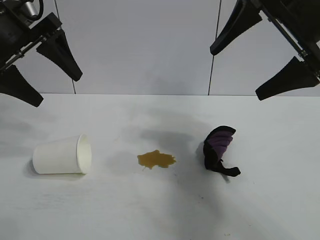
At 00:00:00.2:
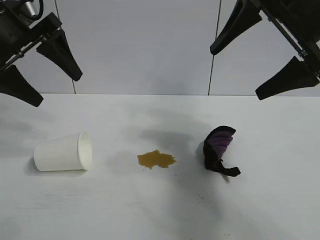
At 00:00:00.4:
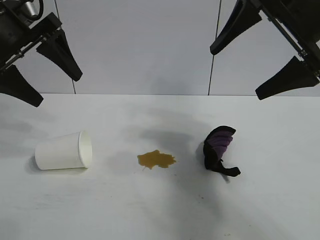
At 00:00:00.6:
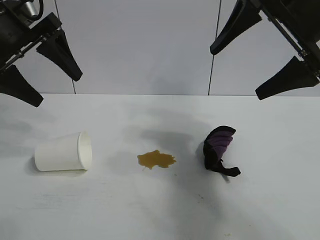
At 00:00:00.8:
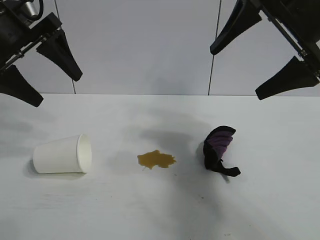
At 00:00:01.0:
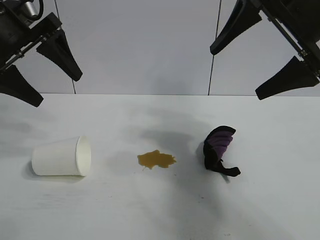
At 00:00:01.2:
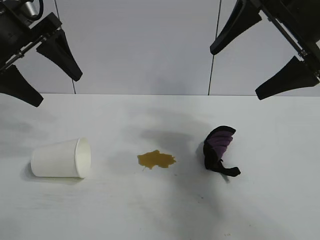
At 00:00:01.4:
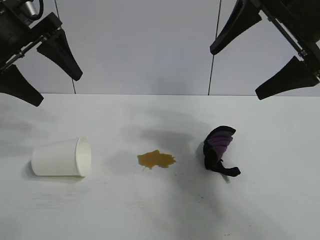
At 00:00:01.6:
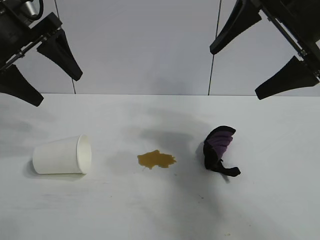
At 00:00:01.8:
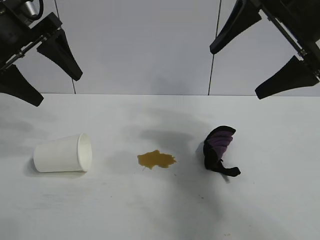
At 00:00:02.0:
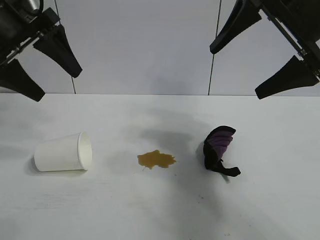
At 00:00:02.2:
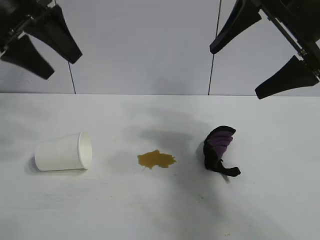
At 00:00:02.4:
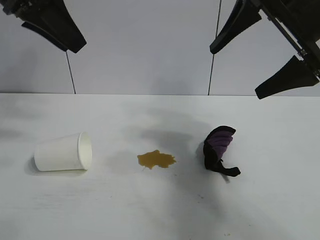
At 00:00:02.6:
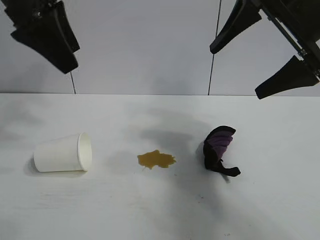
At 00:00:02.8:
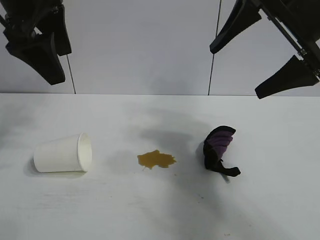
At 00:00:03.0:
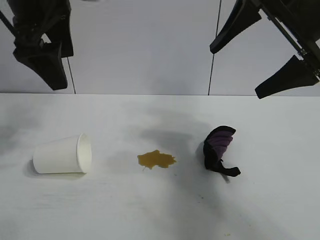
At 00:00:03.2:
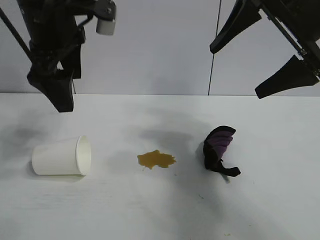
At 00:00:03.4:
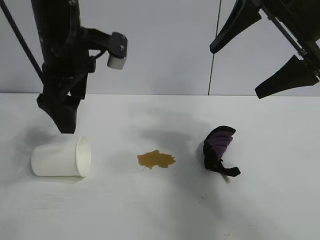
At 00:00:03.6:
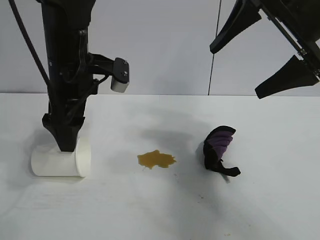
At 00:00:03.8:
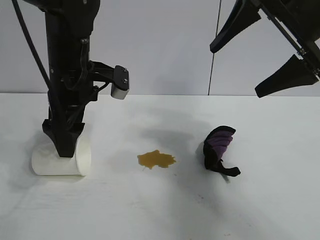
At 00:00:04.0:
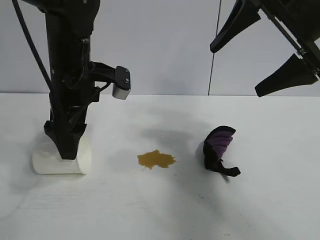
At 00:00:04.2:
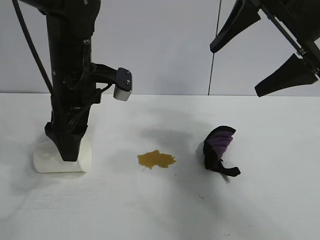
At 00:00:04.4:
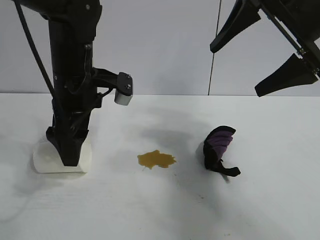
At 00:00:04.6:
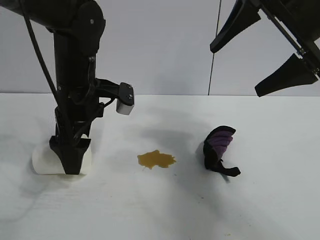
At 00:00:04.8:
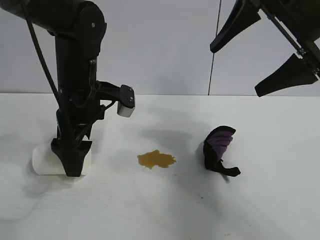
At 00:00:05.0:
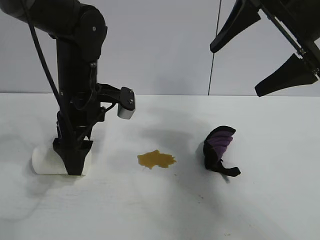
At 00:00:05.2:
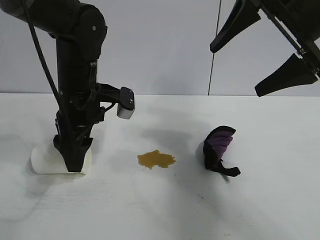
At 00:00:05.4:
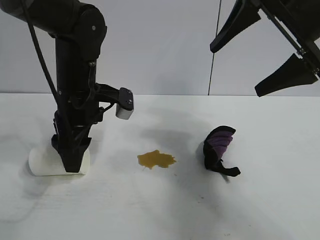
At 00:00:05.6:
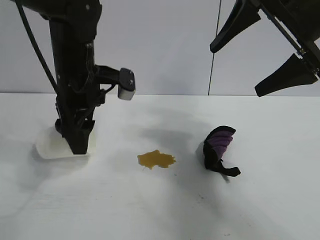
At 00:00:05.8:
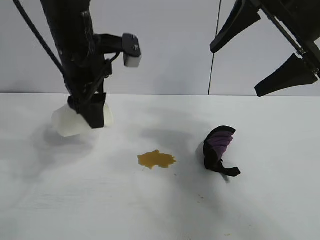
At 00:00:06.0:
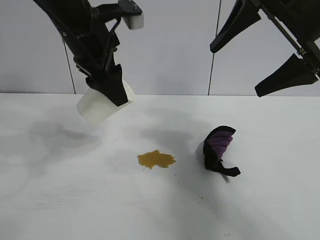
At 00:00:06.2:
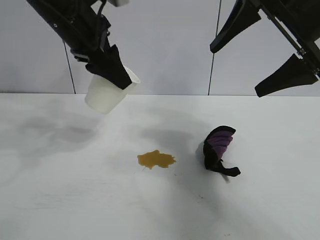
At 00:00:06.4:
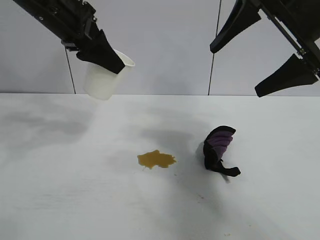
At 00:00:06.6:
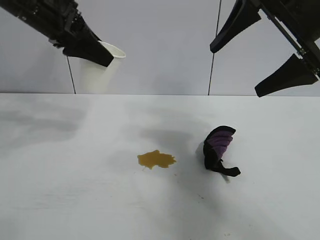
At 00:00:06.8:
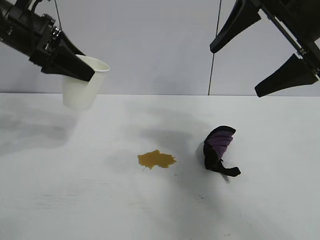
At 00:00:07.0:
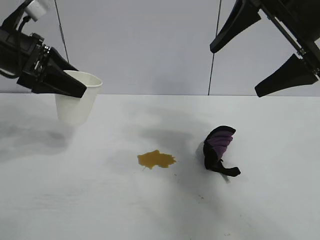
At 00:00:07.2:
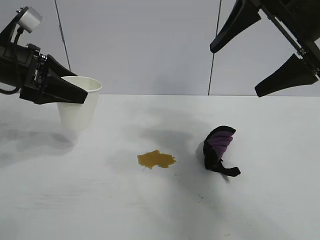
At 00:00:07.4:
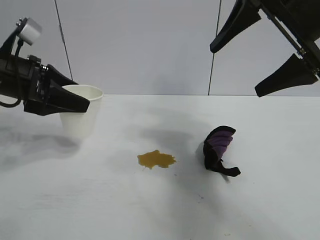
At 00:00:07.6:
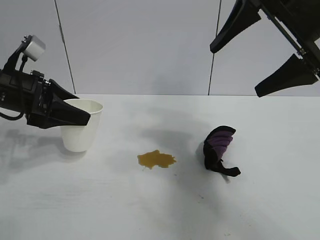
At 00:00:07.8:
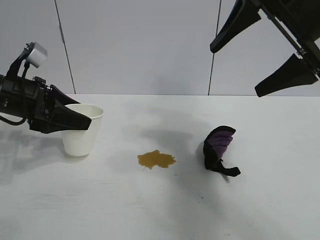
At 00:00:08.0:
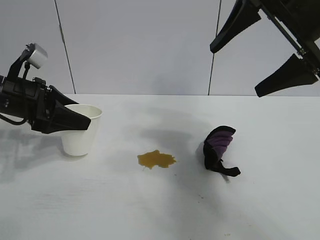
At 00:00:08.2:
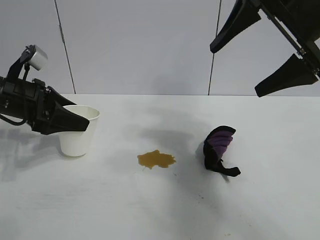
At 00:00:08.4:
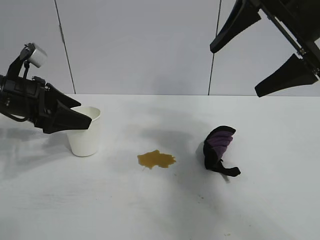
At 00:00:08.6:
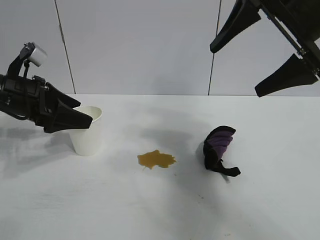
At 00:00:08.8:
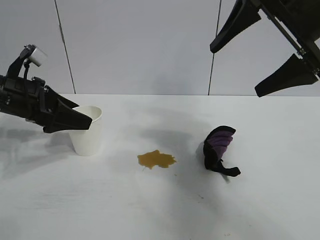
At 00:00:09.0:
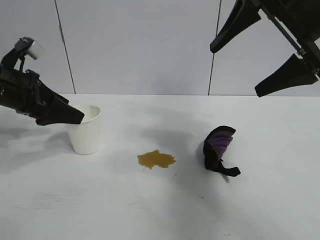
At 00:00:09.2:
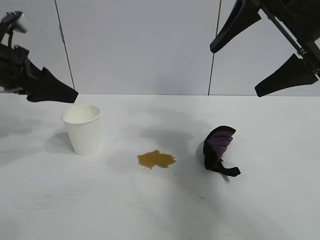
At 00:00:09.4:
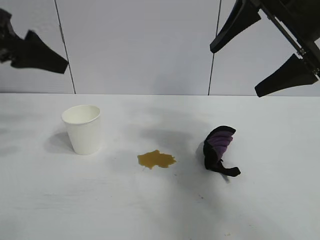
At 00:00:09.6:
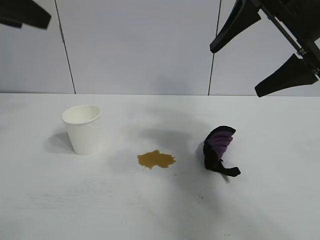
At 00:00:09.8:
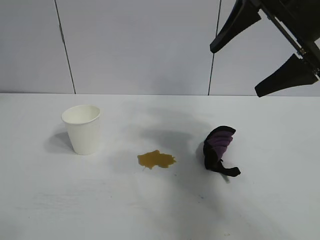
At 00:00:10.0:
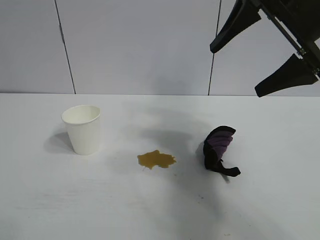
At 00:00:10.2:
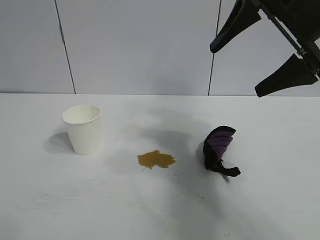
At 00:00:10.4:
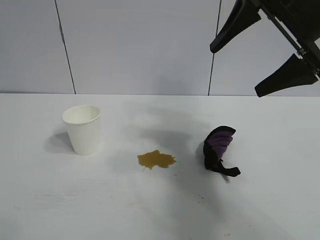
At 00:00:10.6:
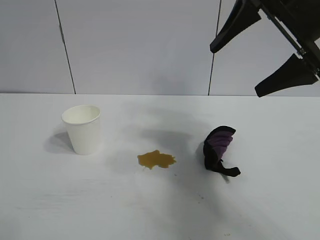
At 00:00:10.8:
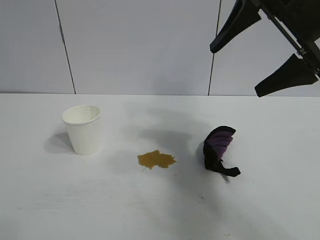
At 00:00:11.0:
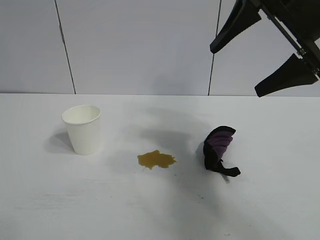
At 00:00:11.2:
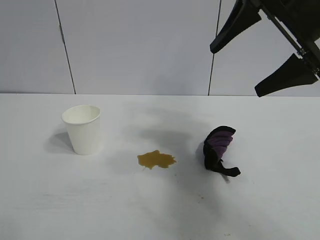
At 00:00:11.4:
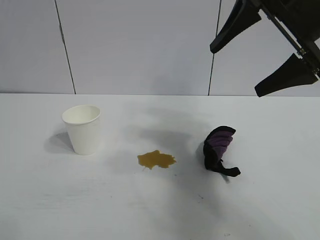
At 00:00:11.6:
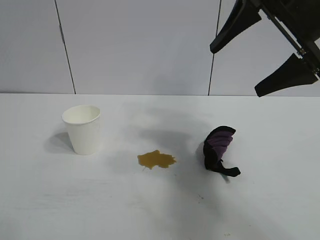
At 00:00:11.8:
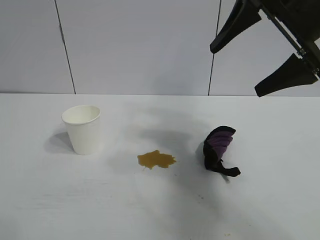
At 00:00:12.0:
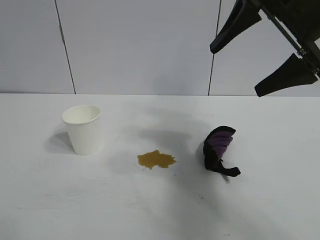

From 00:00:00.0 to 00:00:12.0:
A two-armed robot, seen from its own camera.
Task of the whole recording: the left gripper pick up the fallen cup and place it upright, the right gripper grasp the black rag and wipe the stain on the table, the right gripper put the black rag back in its original position.
Step, from 00:00:02.0 to 00:00:05.2: Grasp the paper cup with left gripper.
Step, from 00:00:05.4 to 00:00:08.6: Stand the paper cup upright with left gripper.

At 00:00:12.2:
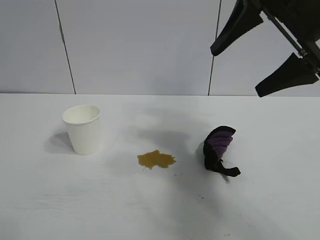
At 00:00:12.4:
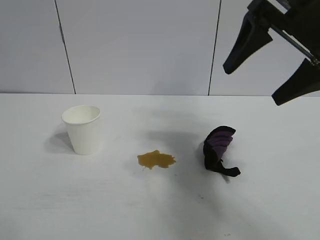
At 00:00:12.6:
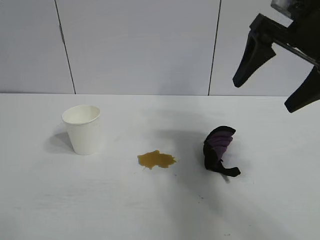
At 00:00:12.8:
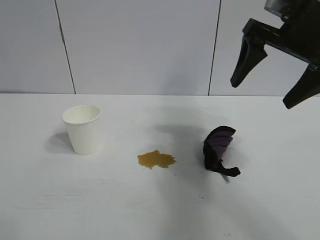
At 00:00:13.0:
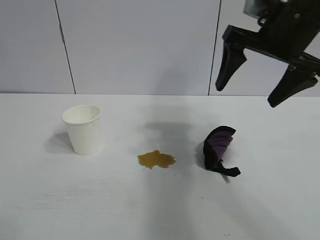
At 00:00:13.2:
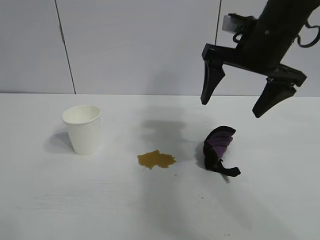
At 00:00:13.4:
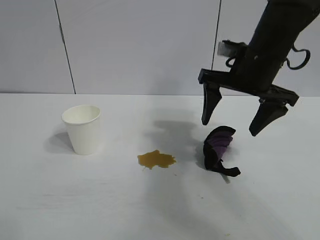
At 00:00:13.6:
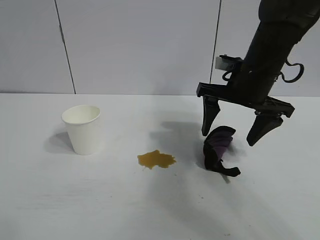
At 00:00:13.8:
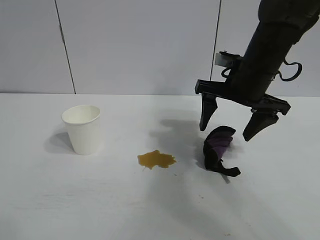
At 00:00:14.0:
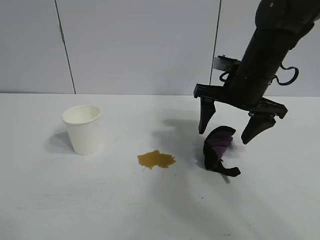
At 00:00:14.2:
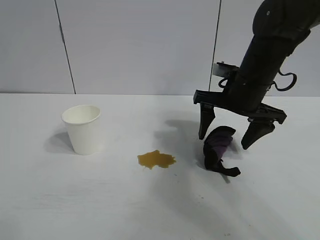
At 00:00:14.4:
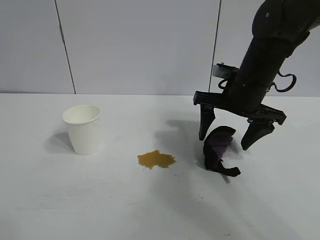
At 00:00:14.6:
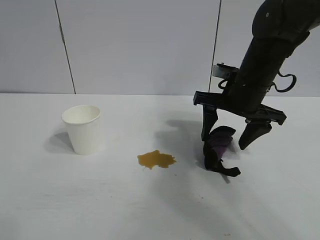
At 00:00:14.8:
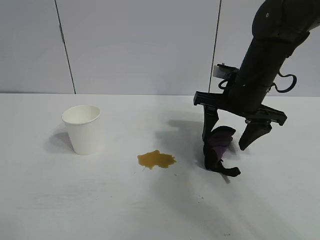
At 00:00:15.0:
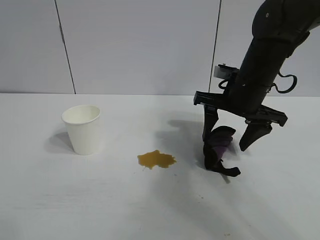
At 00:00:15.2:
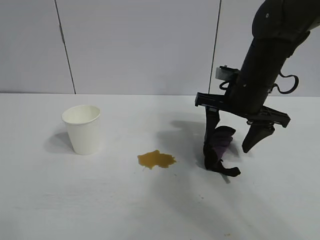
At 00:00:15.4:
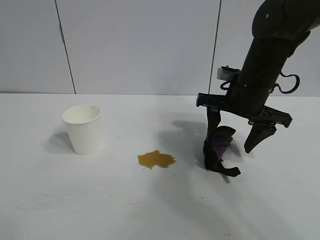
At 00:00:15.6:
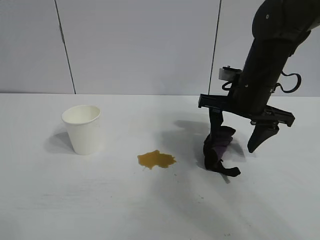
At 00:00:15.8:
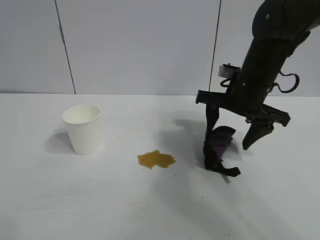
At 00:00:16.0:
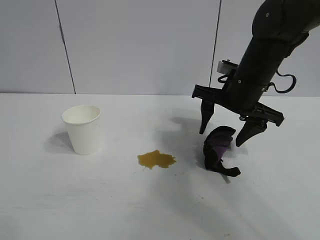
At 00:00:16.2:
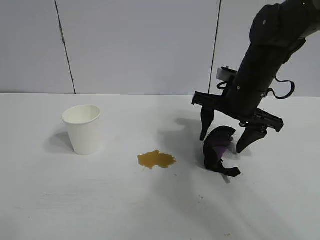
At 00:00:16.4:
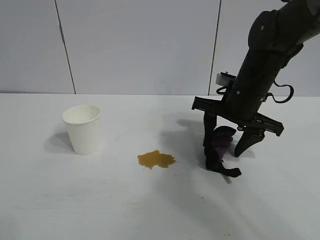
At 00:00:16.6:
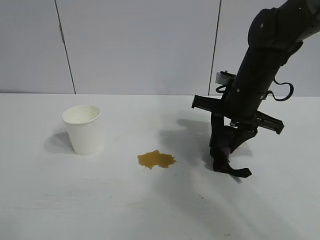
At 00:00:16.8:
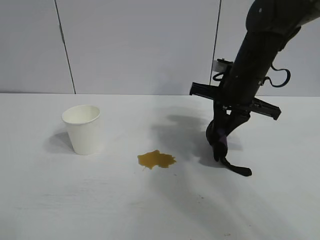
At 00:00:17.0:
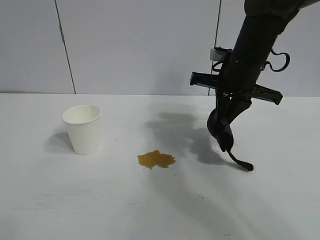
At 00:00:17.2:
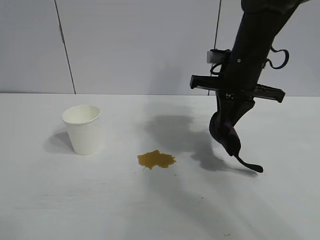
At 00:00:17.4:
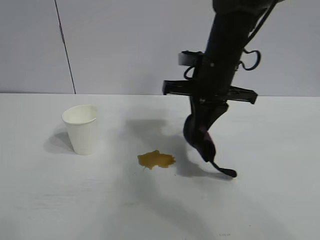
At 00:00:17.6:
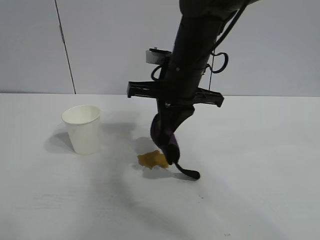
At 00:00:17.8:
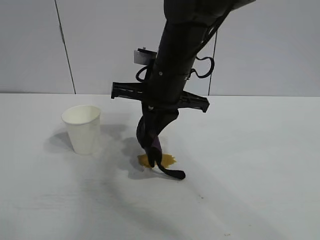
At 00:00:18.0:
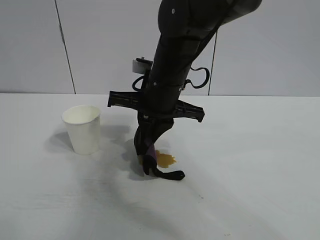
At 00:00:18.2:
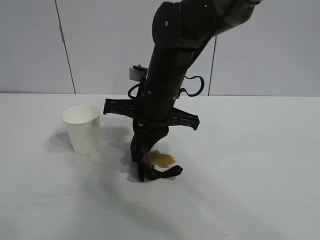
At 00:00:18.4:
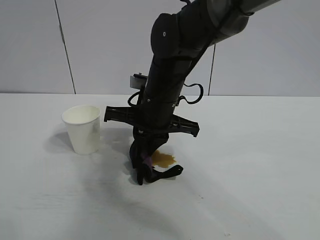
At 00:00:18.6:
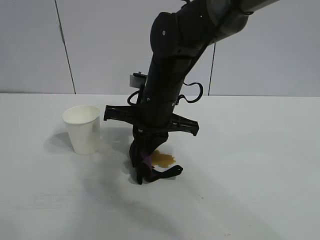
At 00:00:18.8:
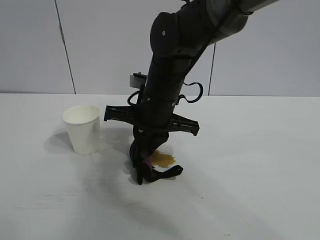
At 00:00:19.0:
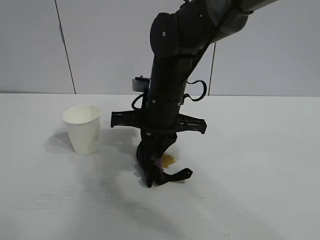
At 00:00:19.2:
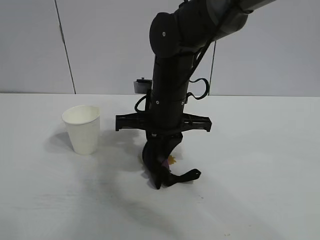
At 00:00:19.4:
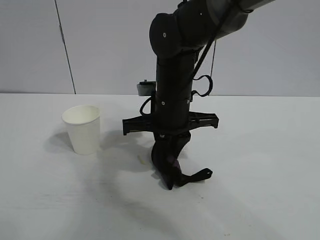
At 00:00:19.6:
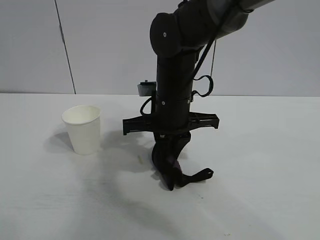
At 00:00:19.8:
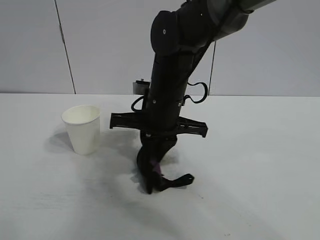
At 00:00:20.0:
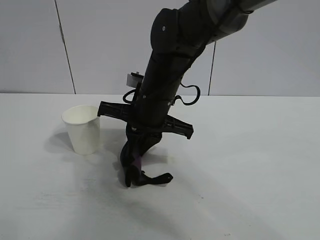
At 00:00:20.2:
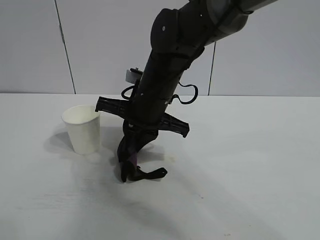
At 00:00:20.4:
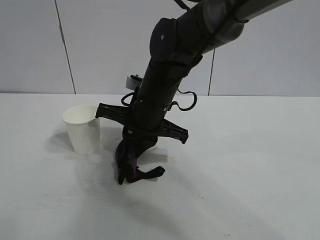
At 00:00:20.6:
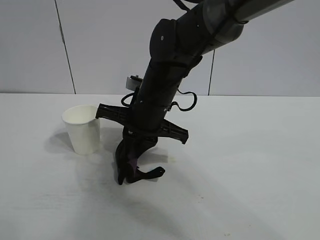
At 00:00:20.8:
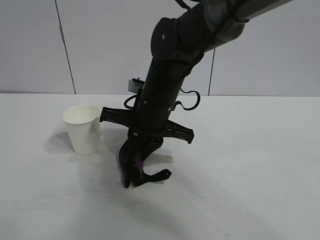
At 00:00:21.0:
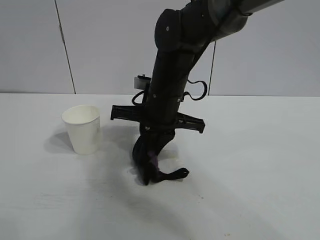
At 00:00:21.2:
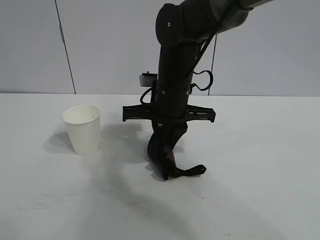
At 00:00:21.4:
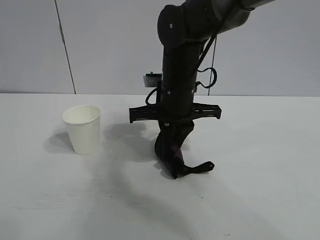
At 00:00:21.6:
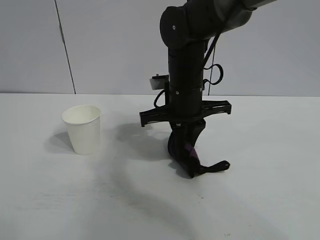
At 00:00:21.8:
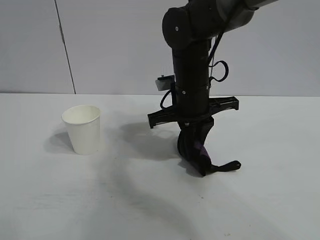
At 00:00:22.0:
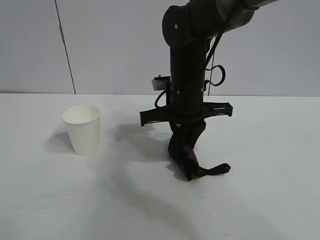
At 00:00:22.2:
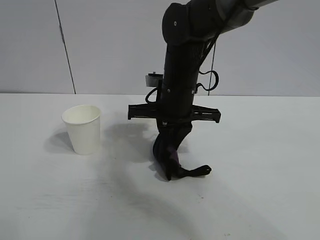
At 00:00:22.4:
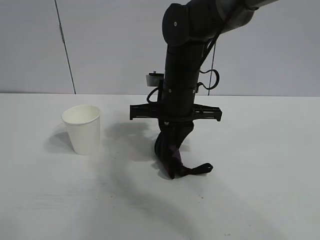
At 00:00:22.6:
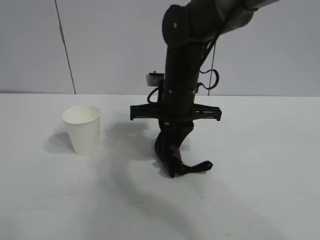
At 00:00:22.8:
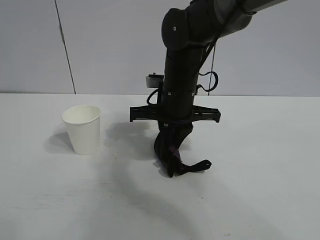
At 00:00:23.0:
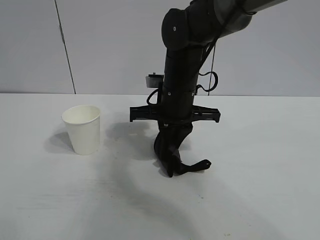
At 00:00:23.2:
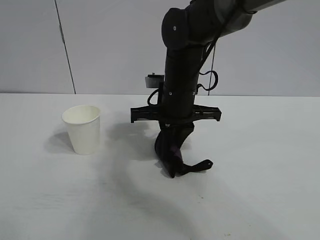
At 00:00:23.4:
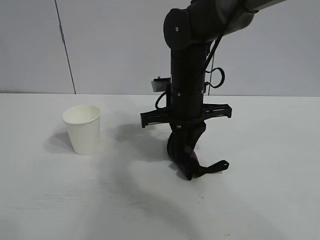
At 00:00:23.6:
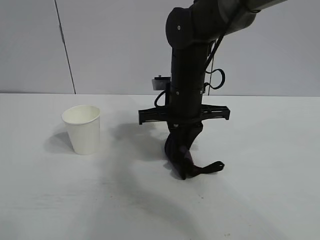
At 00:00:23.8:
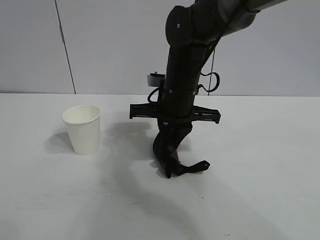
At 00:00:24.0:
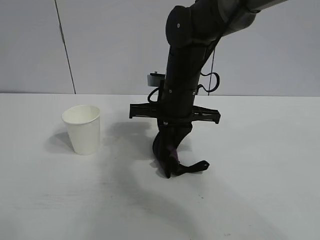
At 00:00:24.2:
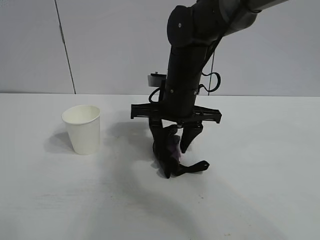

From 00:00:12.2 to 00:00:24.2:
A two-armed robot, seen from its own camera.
Task of the whole recording: the left gripper pick up the fallen cup and place it upright, the right gripper grasp the black rag and wipe the stain on the table, the right gripper put the black rag back in its original position.
Step, from 00:00:12.2 to 00:00:16.6: Grasp the rag with right gripper.
Step, from 00:00:16.8 to 00:00:23.8: Wipe the stains off the table with the rag with right gripper.
